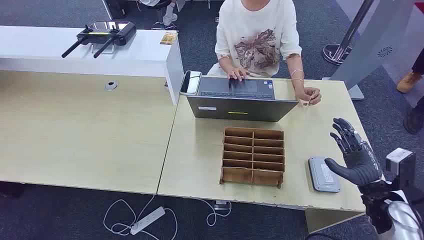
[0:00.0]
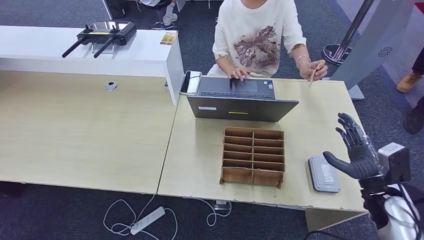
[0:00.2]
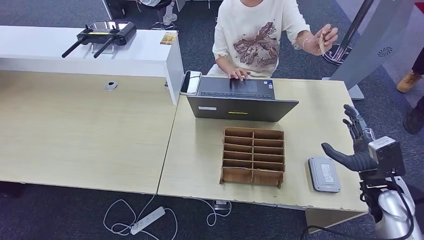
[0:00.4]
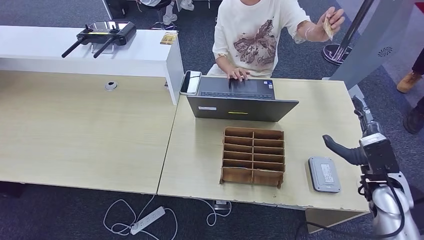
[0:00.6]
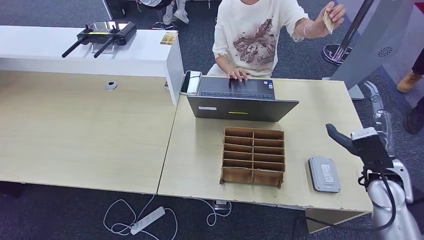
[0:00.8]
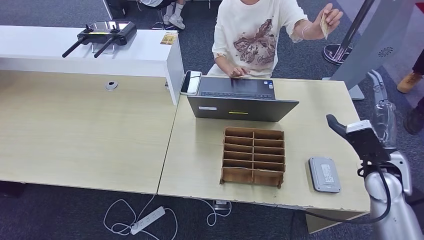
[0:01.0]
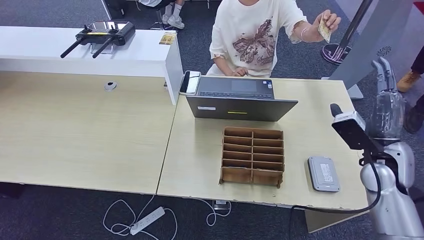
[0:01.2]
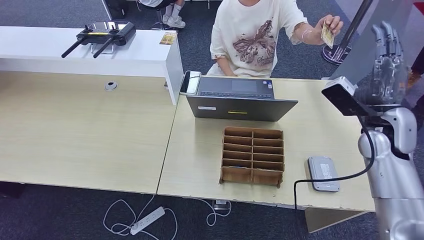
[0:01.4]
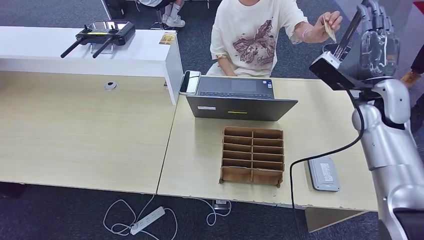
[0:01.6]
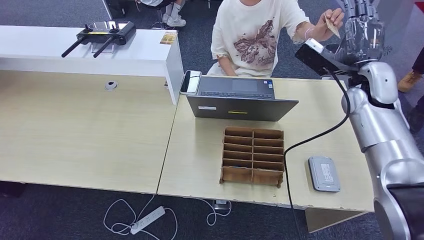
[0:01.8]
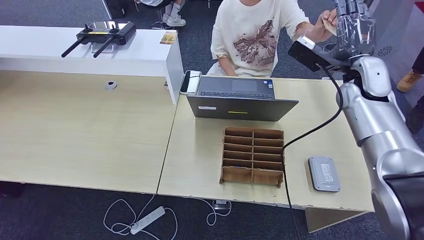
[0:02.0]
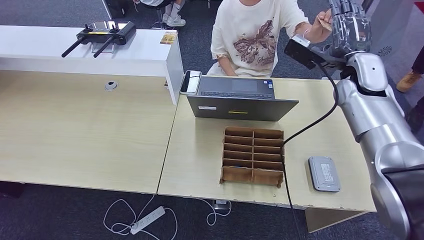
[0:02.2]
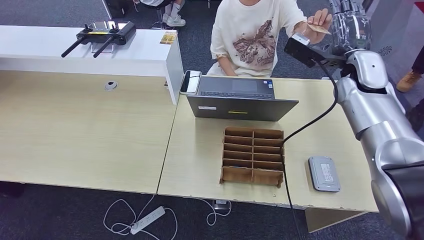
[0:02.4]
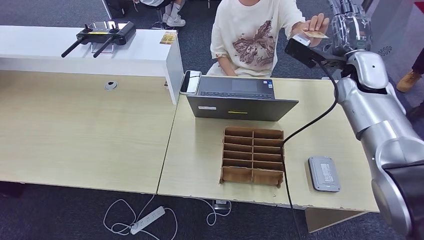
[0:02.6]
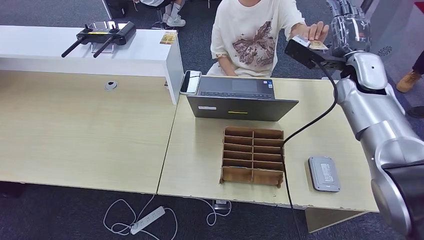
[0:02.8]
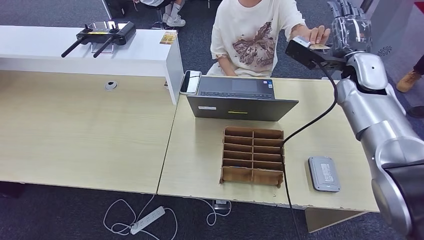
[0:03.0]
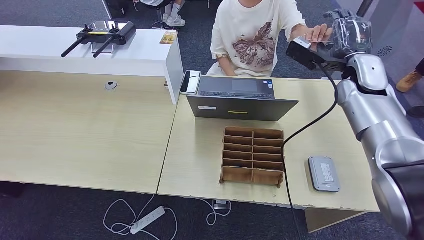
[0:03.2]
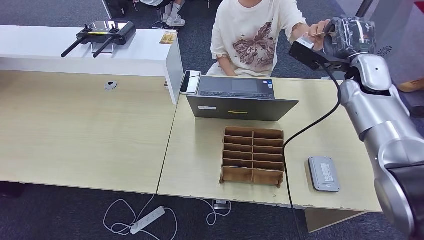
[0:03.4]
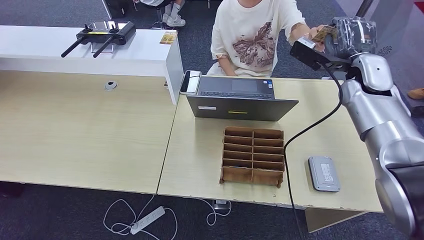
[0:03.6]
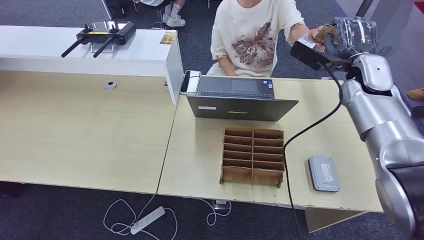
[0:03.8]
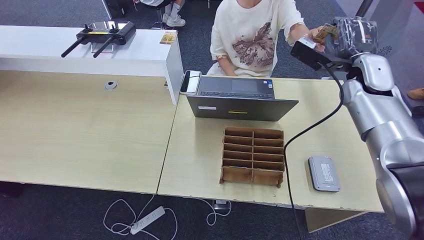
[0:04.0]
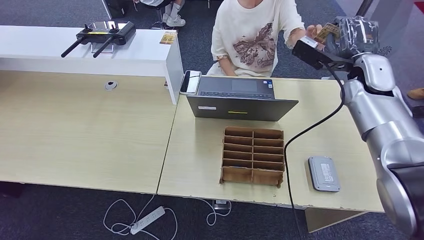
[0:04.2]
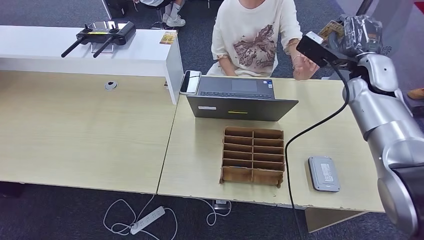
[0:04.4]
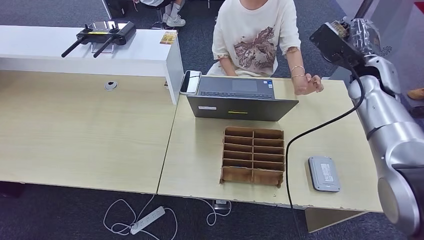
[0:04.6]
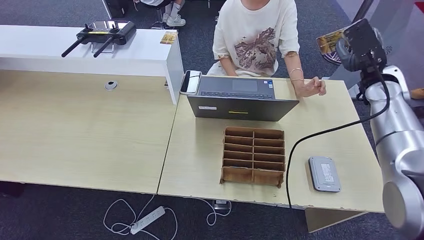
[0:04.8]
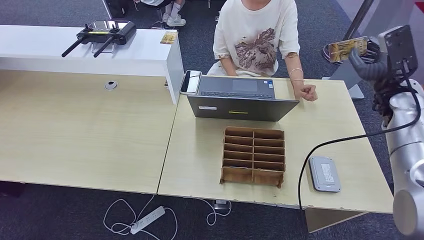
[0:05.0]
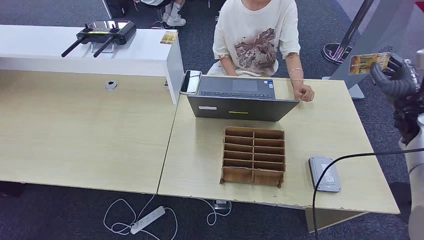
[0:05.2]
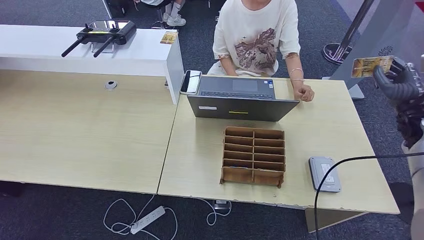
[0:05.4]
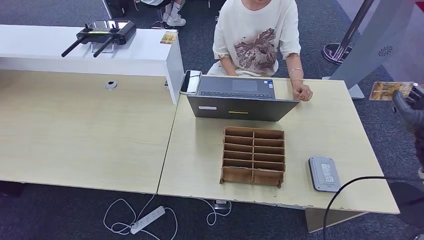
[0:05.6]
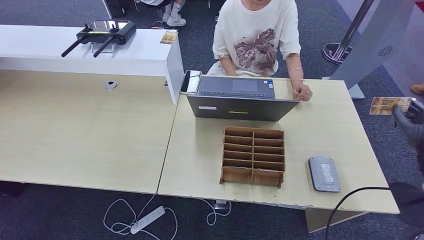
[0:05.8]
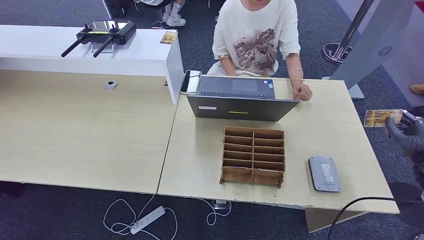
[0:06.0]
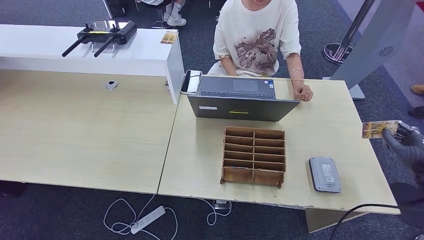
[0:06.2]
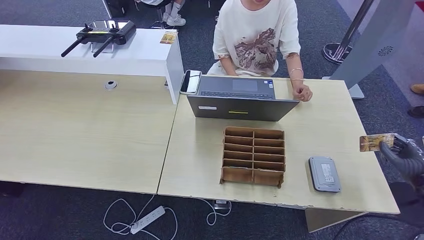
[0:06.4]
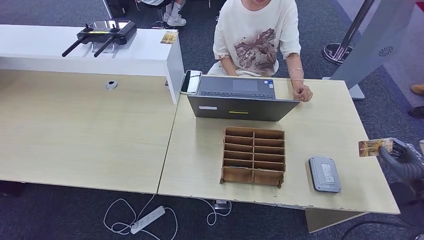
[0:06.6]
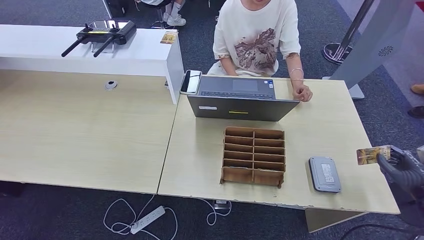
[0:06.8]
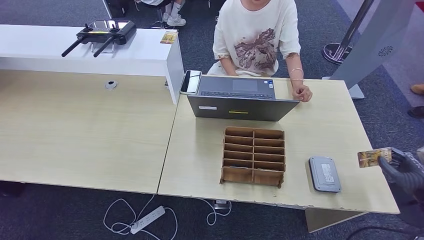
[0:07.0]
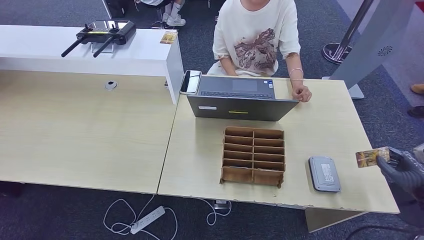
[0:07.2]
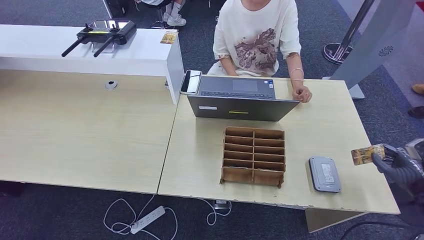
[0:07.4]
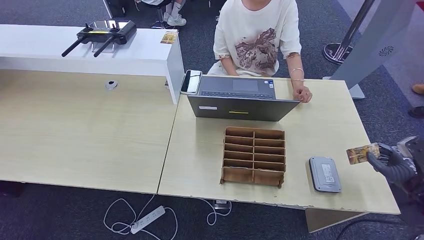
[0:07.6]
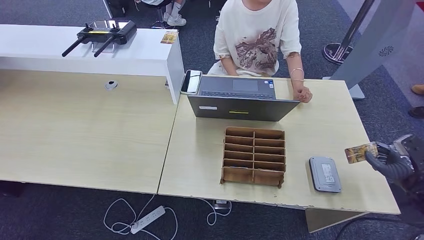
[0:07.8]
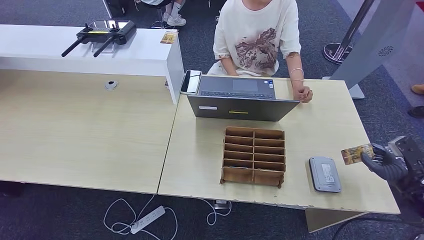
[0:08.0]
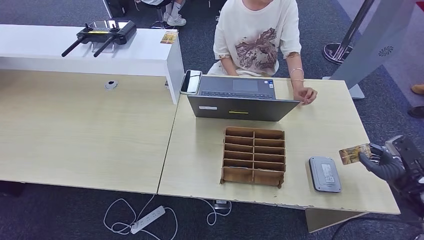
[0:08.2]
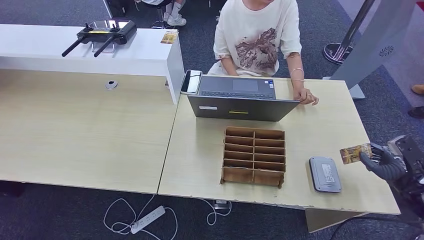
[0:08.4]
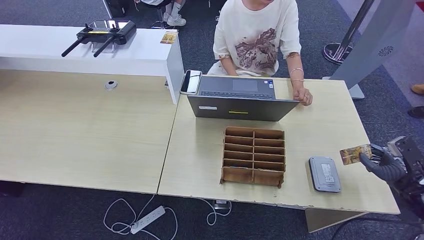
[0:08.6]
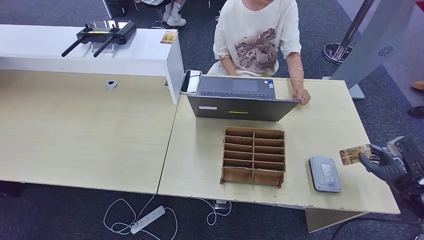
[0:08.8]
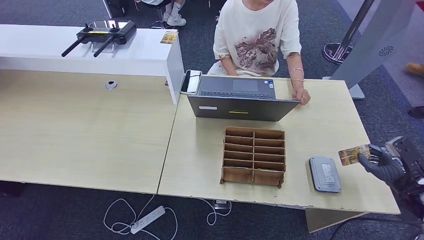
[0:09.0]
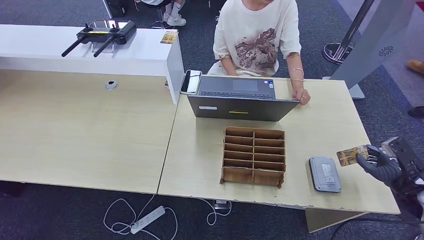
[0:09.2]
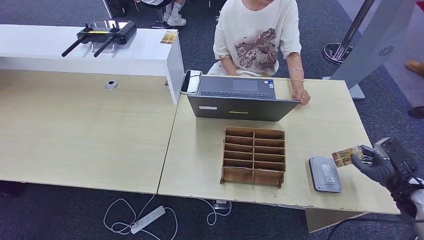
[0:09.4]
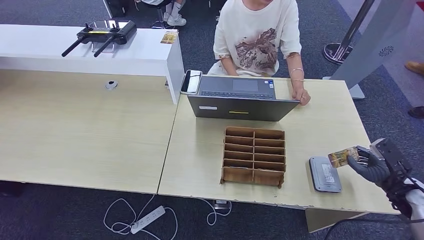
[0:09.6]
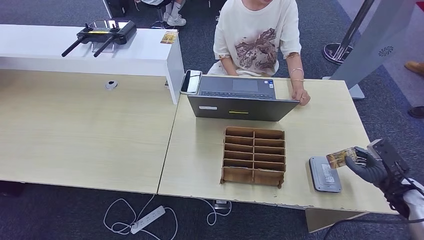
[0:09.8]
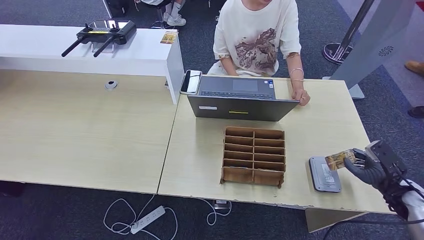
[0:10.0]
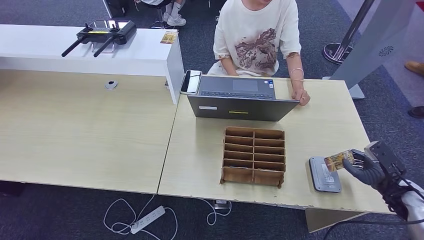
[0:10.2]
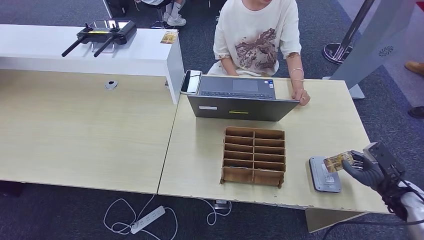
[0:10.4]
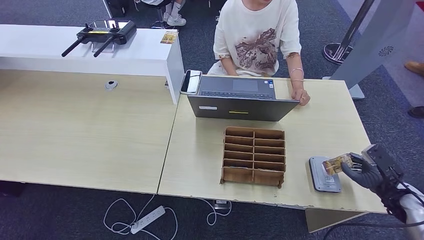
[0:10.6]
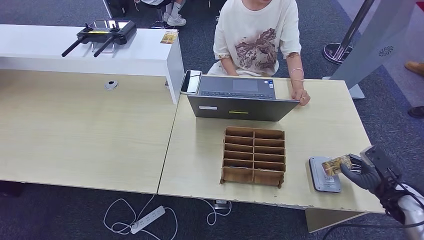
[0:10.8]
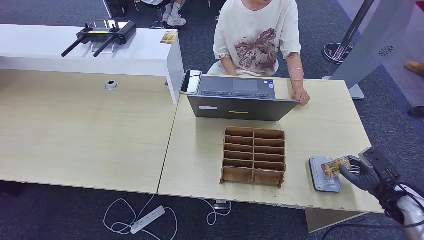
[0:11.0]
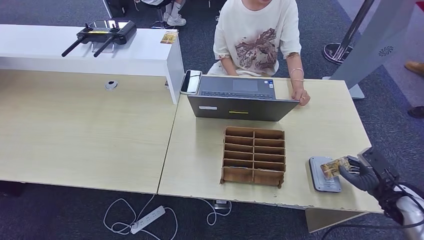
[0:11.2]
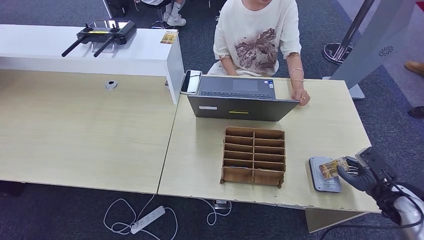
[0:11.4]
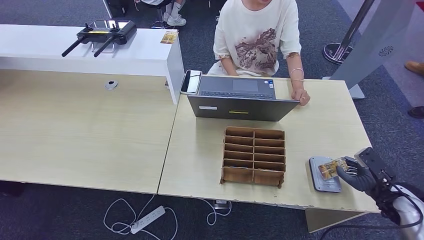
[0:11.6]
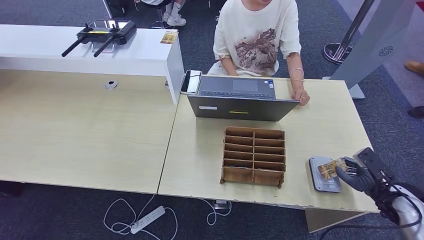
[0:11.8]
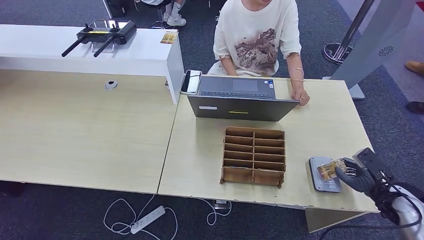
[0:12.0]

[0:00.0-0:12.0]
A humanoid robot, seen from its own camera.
Step, 0:00.0 to 0:04.0: Take the ID card from the person's hand.
0:01.6 to 0:03.0: The right hand moves forward, about 5 cm.
0:03.0 to 0:04.4: There are only small adjustments of the hands.
0:04.4 to 0:06.0: The right hand shifts approximately 30 cm to the right, downward and backward.
0:06.0 to 0:07.6: The right hand shifts by some 5 cm.
0:07.6 to 0:10.4: The hands stay close to where they were, moving slightly.
0:10.4 to 0:12.0: There are only small adjustments of the hands.

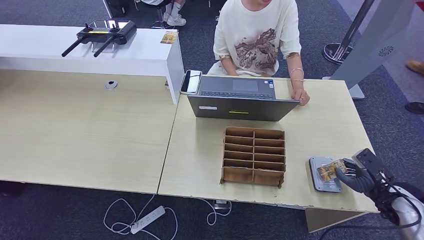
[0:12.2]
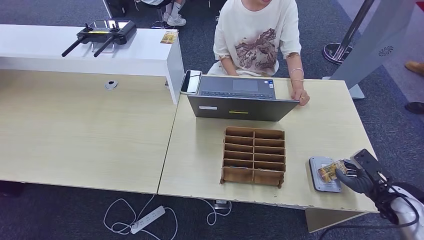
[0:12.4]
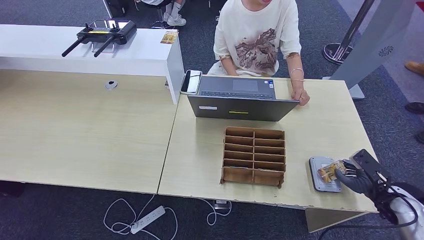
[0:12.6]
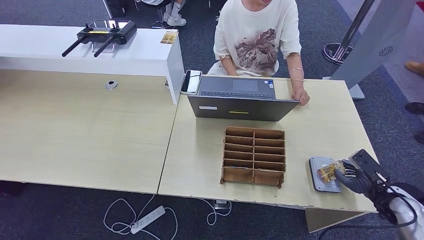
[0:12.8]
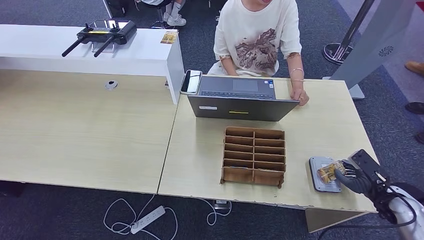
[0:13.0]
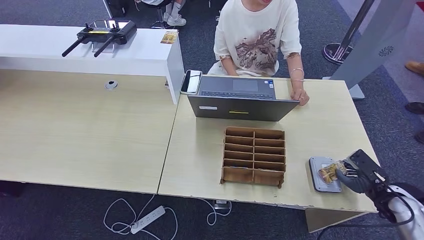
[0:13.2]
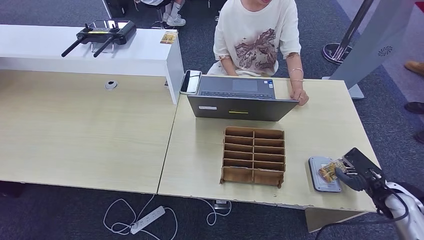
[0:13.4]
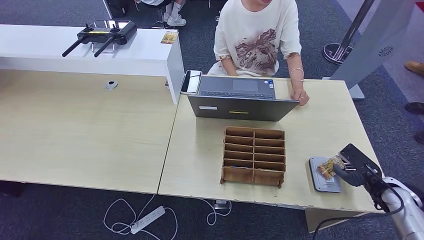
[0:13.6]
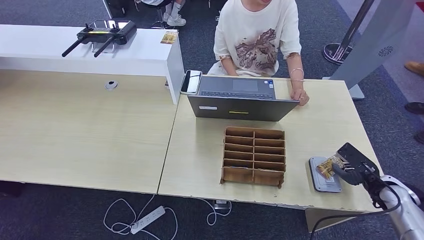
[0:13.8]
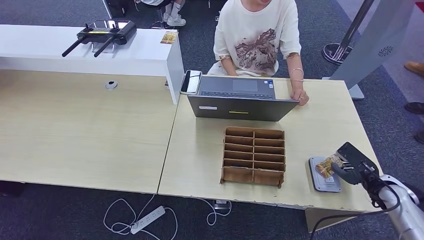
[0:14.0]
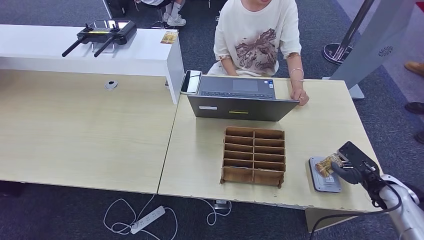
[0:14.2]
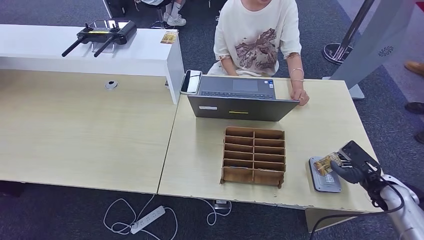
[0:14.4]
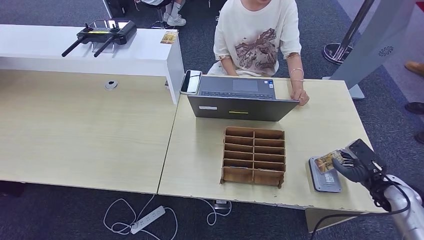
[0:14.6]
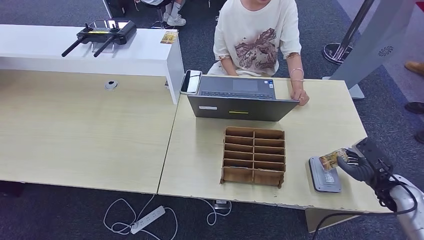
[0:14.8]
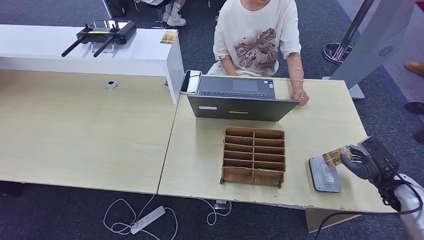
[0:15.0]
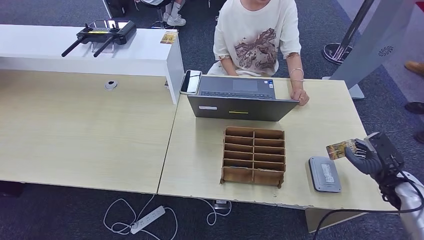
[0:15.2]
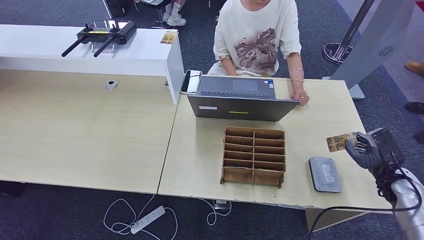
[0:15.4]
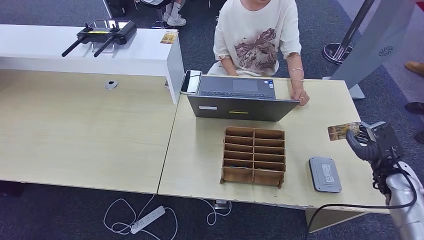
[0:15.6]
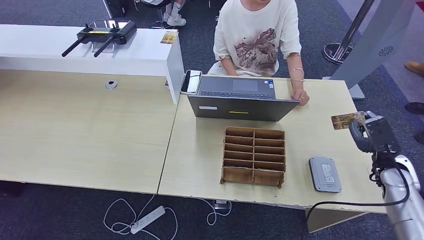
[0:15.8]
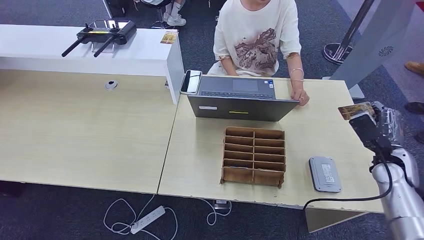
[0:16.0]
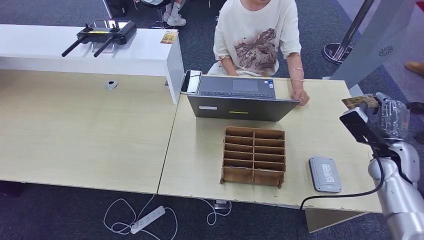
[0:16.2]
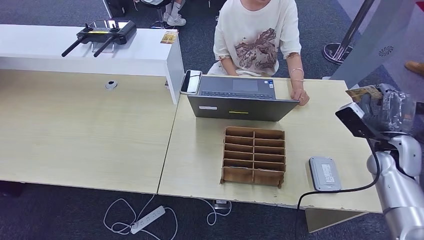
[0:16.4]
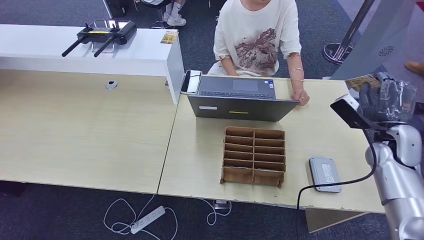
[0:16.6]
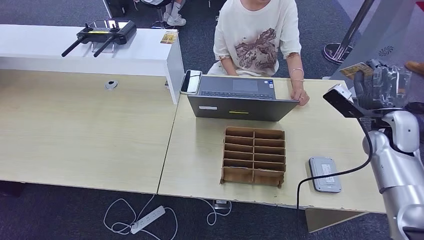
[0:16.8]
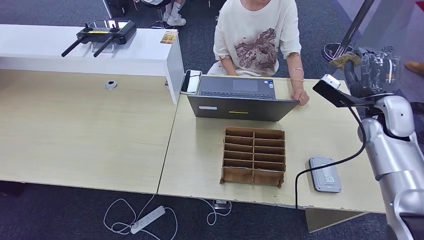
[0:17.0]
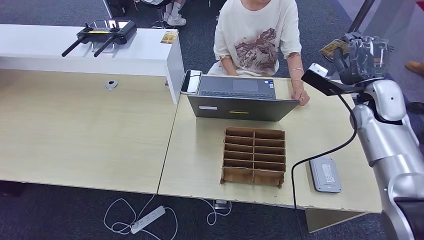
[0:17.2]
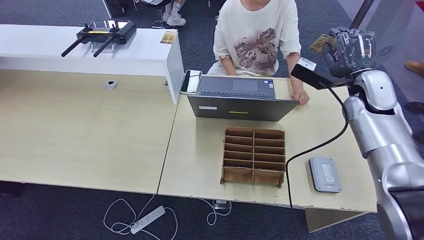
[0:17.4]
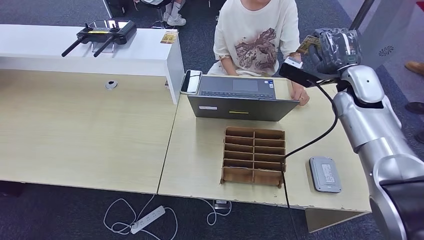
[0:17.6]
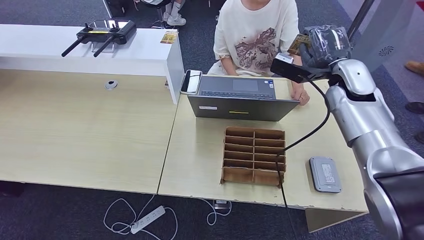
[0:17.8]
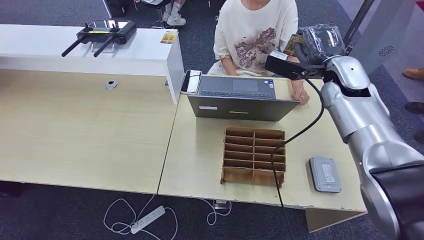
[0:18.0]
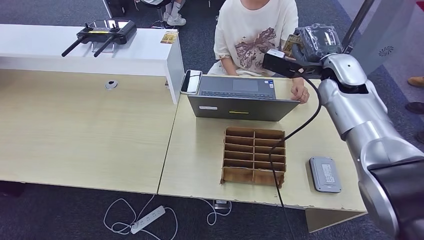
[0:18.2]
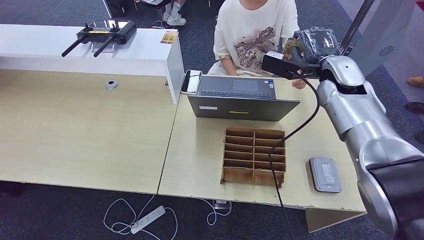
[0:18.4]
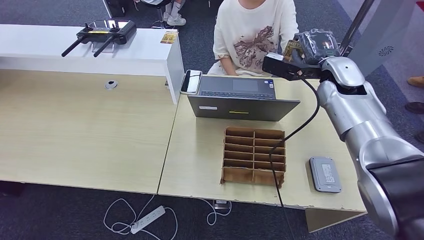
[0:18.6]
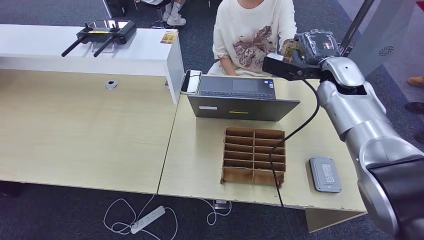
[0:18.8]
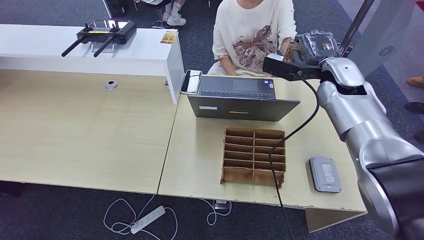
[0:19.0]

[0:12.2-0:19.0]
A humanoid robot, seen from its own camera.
0:12.2 to 0:15.0: The hands make only small movements.
0:15.0 to 0:16.2: The right hand heads upward, to the left and forward, covering about 10 cm.
0:16.2 to 0:17.6: The right hand is displaced upward, to the left and forward by some 20 cm.
0:17.6 to 0:19.0: The right hand ends up approximately 5 cm from where it was.
